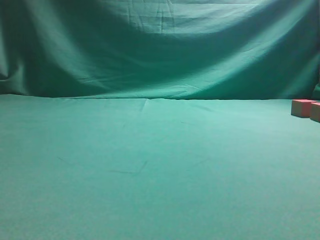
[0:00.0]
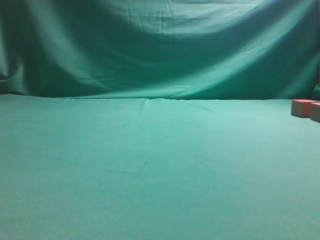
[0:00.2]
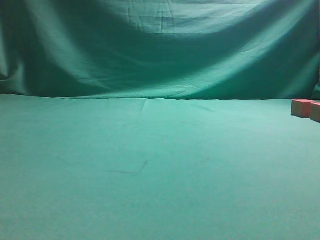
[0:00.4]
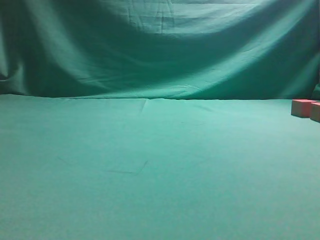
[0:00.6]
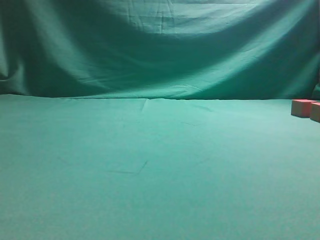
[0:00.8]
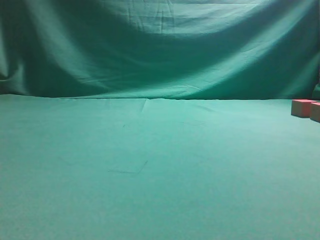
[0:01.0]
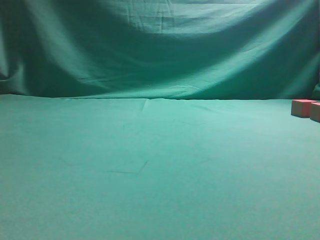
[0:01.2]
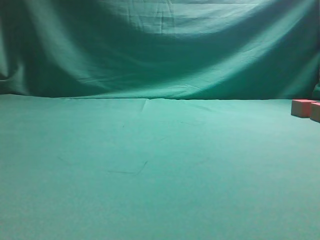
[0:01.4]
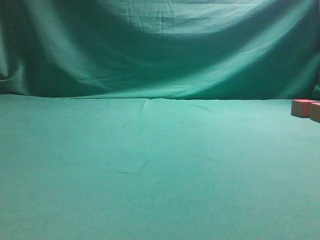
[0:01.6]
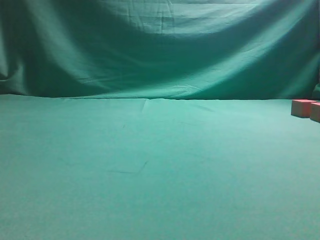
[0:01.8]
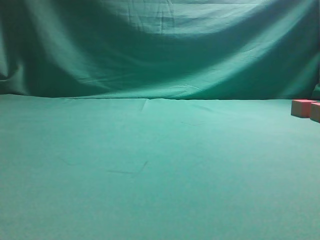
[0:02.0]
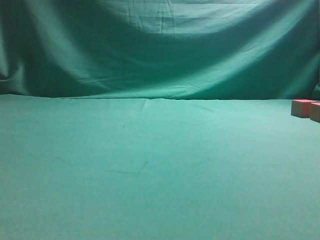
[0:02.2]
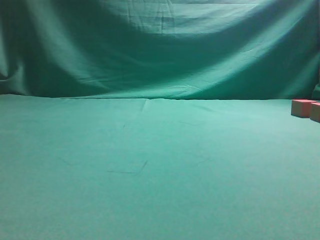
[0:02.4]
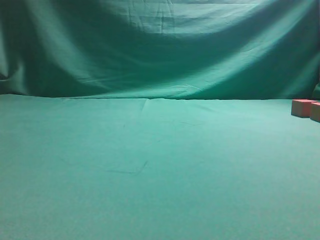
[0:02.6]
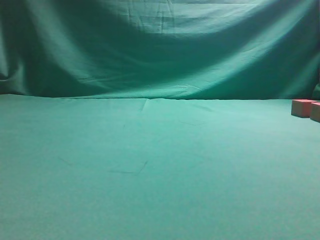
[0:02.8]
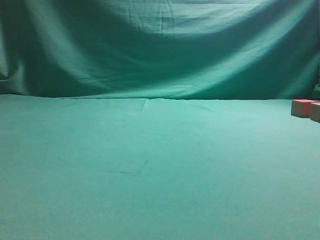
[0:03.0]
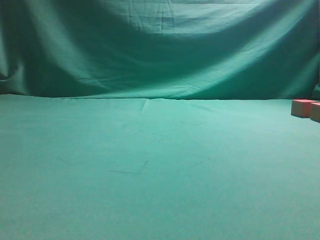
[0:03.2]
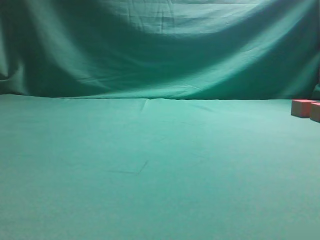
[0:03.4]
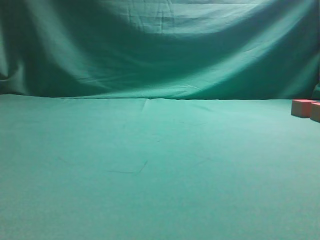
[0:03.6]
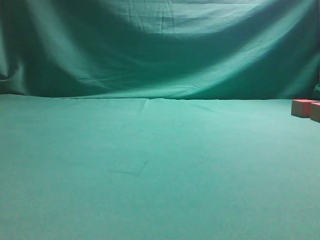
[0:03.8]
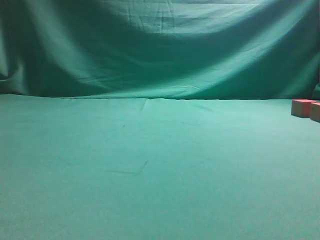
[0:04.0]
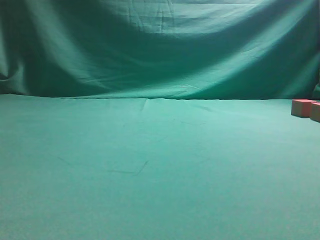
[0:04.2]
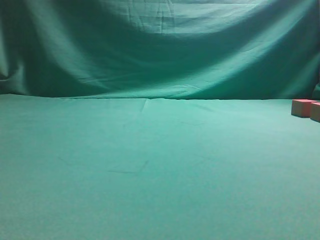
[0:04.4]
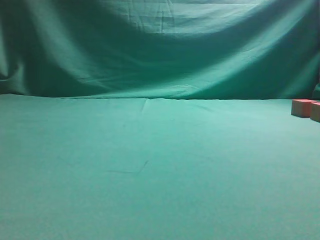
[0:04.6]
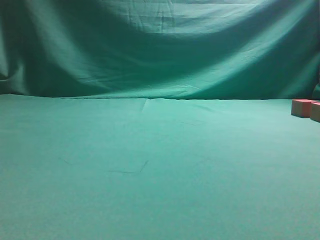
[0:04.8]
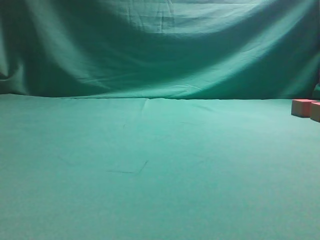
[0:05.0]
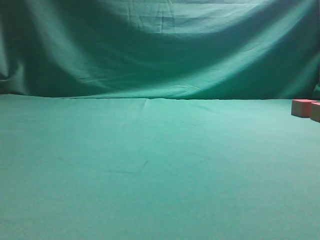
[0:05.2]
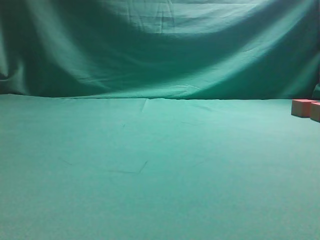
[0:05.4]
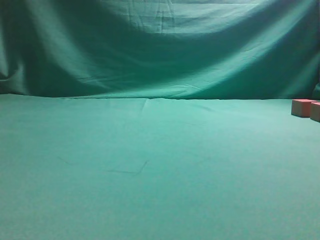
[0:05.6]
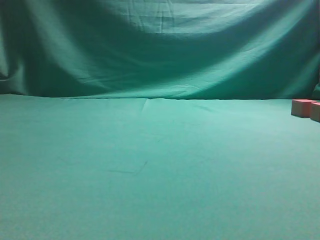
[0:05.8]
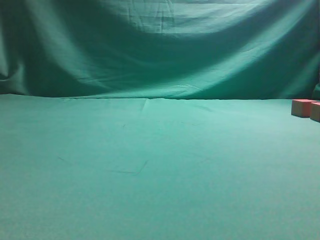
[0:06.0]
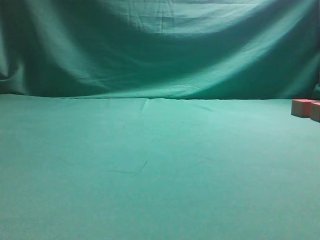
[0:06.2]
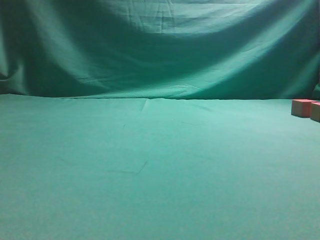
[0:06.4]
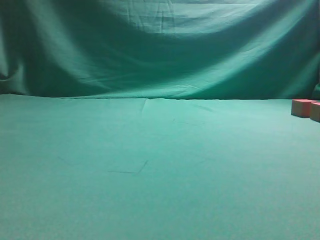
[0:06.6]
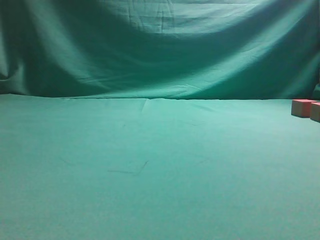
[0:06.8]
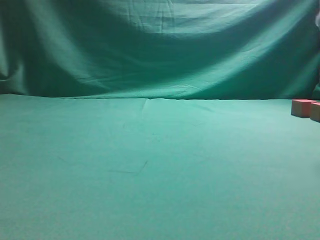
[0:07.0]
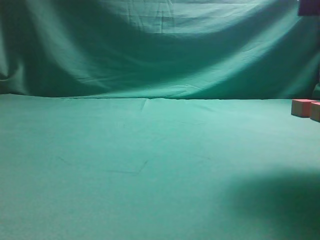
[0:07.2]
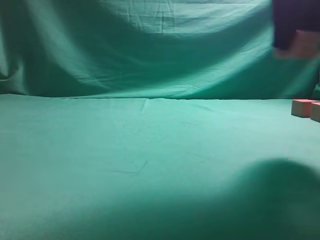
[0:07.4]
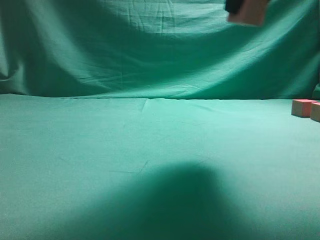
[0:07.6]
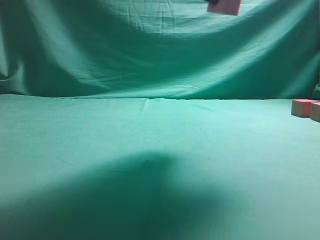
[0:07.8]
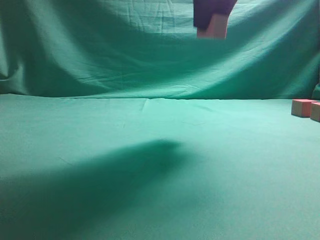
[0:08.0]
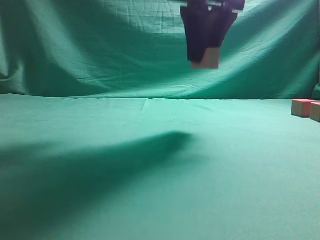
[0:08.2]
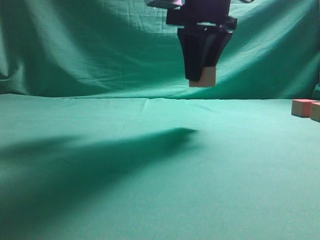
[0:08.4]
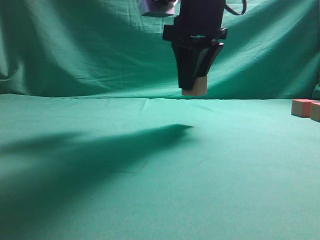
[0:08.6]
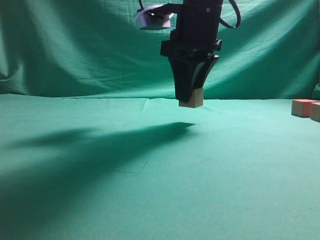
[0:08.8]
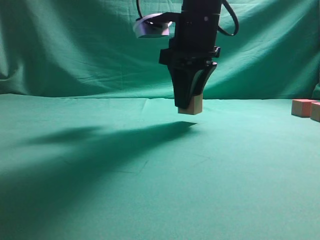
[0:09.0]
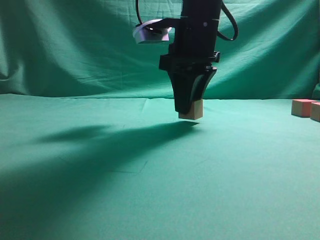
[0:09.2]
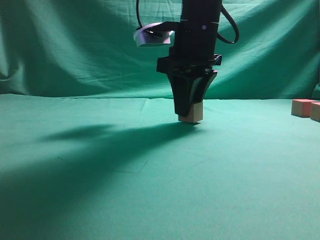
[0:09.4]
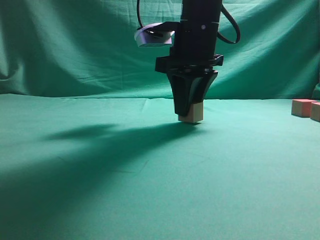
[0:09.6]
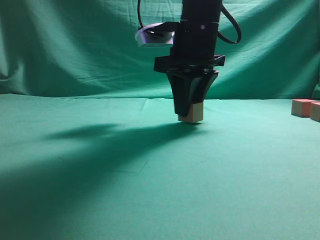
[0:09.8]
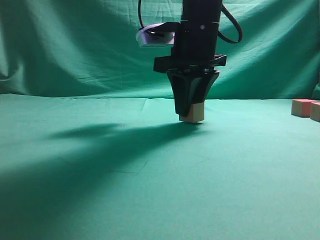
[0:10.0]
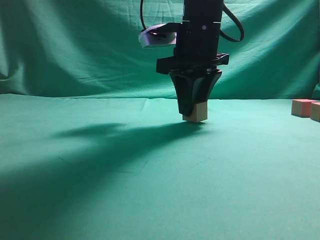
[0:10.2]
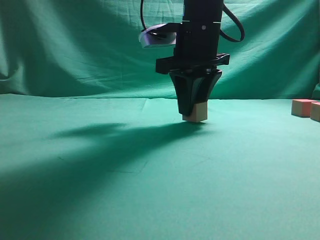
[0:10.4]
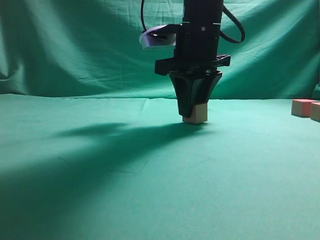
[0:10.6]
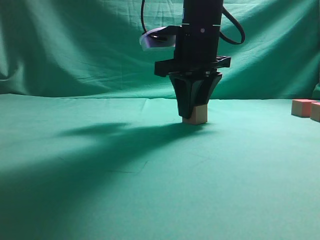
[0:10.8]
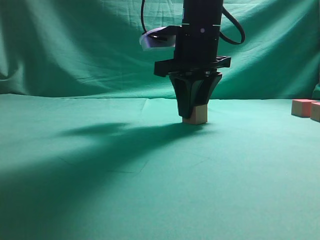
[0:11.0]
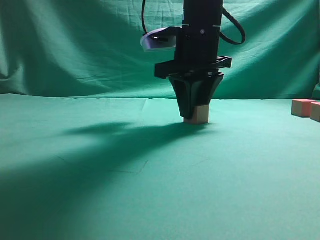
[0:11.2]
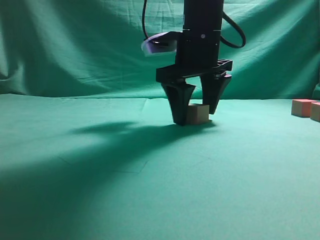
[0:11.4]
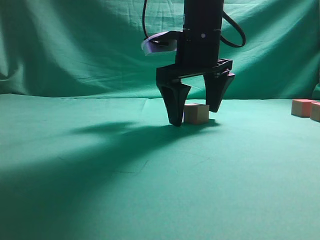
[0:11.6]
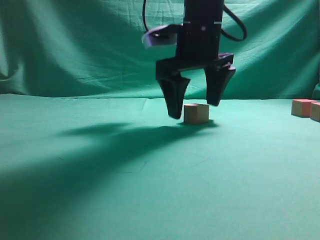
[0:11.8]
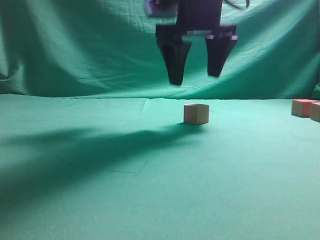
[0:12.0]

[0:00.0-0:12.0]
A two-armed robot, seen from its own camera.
Task of the whole recording: pick up the multiple cubes in two columns one by one and place them in another position on the table.
Step, 0:04.2 to 0:12.0: Place the block at the correct position to assemble the letter S.
0:06.0 to 0:07.6: The right gripper heads upward and to the left, covering approximately 20 cm, and closes its fingers.
0:07.6 to 0:09.0: The right gripper moves forward, downward and to the left, roughly 15 cm.
0:09.0 to 0:10.4: The grippers move only a little.
0:10.4 to 0:12.0: The right gripper opens.

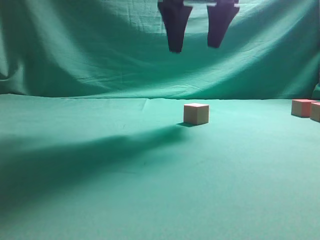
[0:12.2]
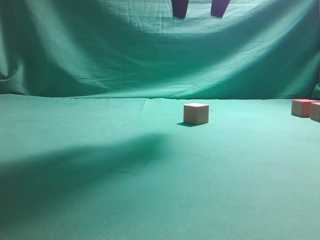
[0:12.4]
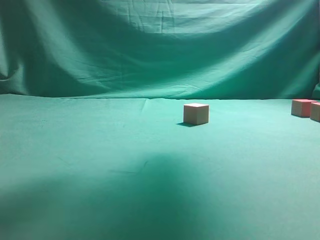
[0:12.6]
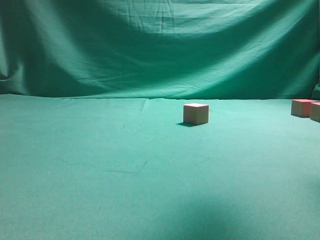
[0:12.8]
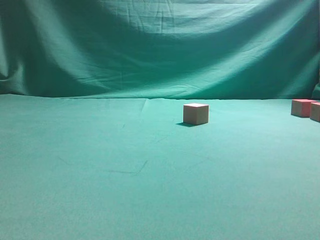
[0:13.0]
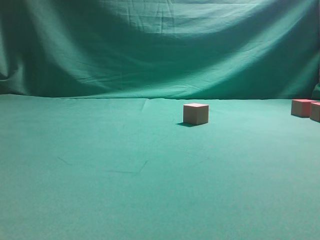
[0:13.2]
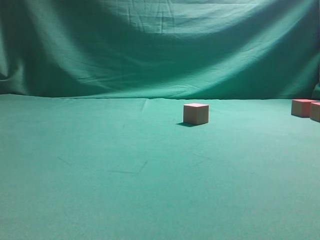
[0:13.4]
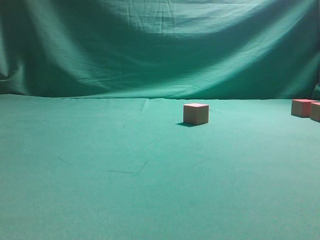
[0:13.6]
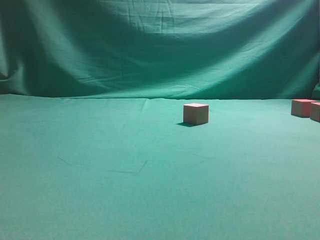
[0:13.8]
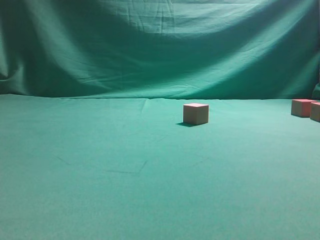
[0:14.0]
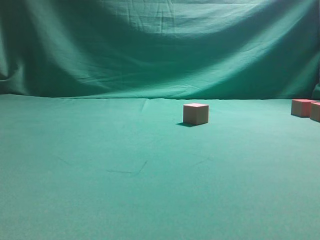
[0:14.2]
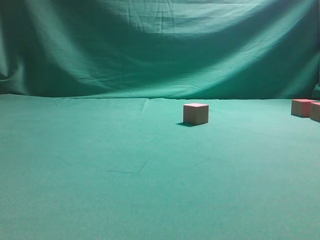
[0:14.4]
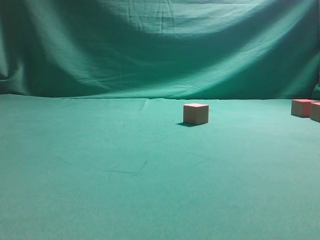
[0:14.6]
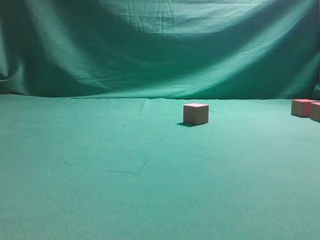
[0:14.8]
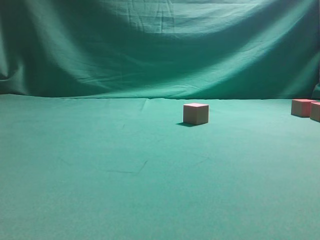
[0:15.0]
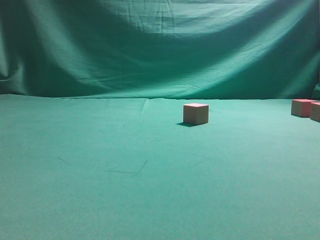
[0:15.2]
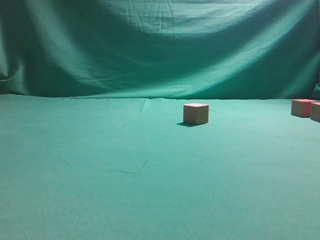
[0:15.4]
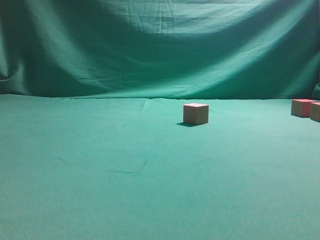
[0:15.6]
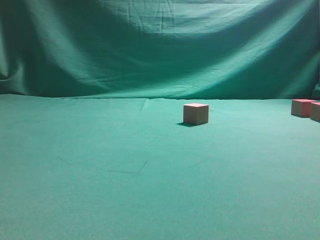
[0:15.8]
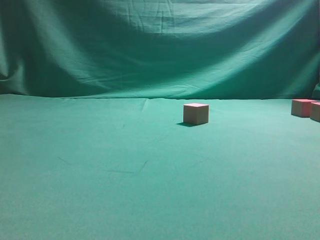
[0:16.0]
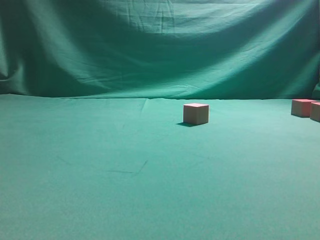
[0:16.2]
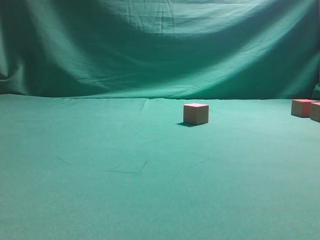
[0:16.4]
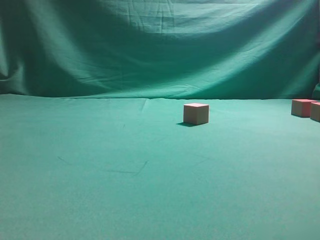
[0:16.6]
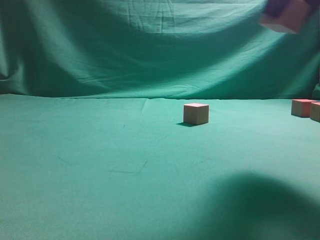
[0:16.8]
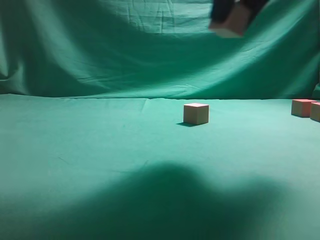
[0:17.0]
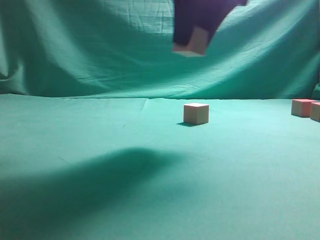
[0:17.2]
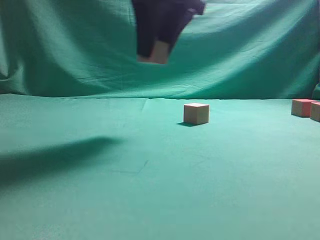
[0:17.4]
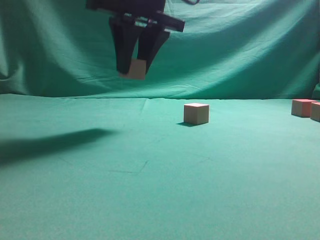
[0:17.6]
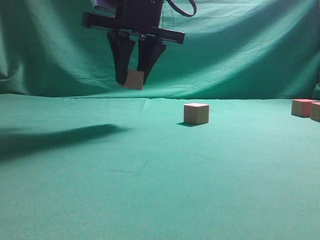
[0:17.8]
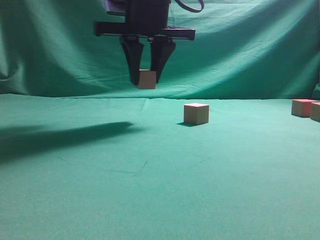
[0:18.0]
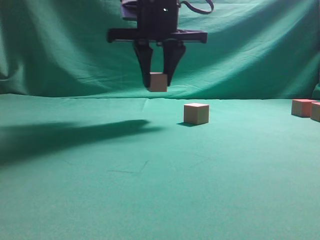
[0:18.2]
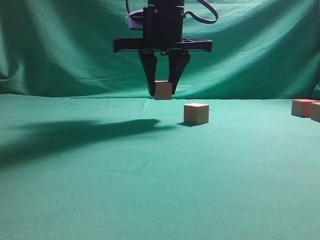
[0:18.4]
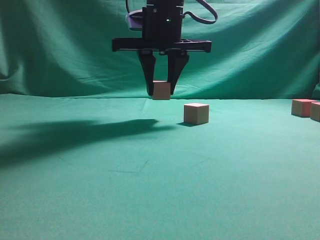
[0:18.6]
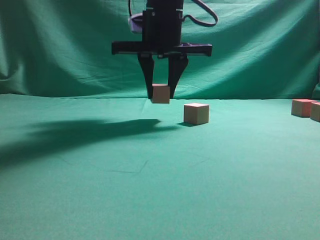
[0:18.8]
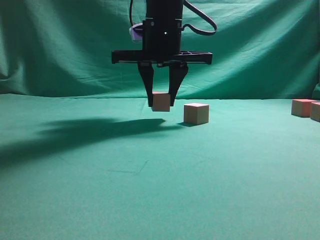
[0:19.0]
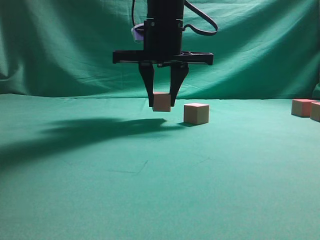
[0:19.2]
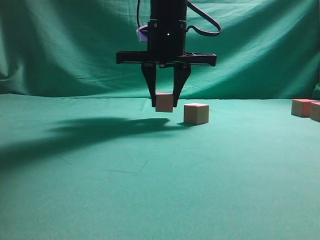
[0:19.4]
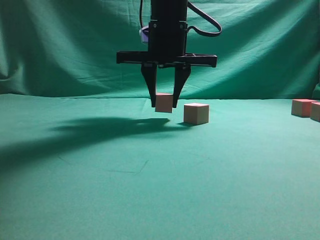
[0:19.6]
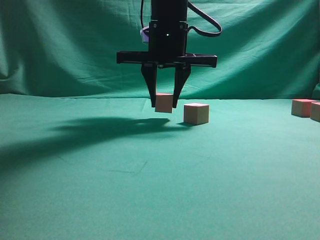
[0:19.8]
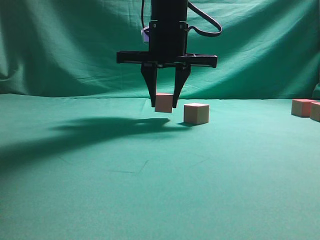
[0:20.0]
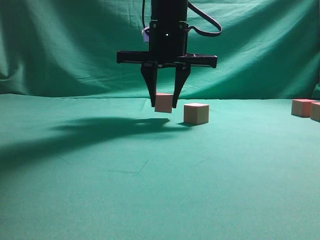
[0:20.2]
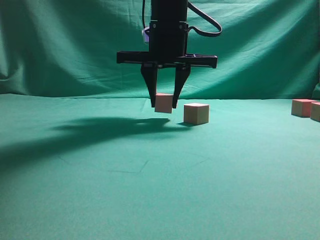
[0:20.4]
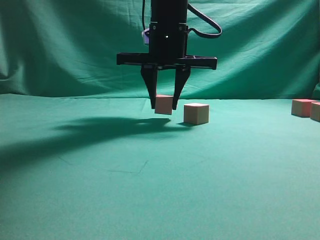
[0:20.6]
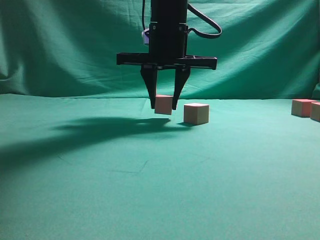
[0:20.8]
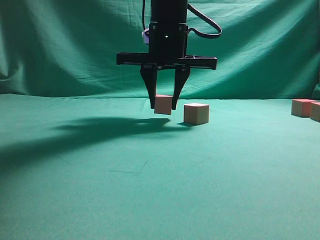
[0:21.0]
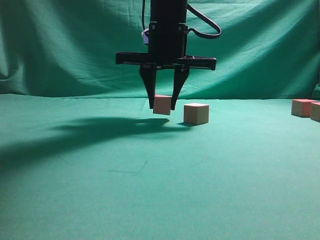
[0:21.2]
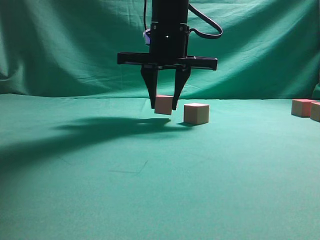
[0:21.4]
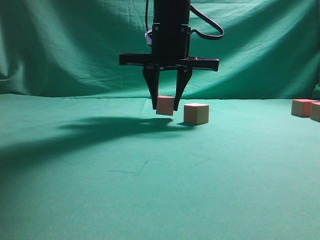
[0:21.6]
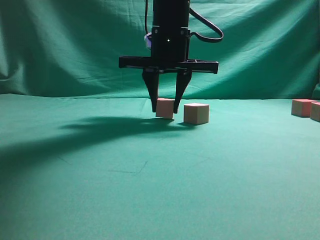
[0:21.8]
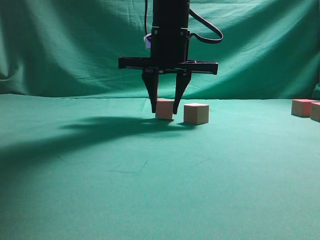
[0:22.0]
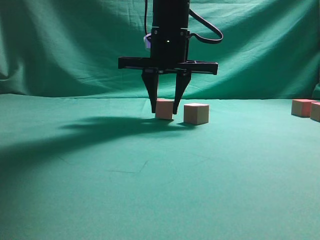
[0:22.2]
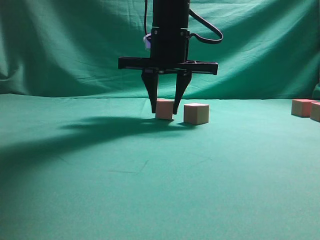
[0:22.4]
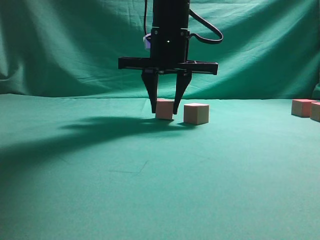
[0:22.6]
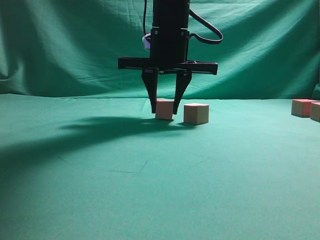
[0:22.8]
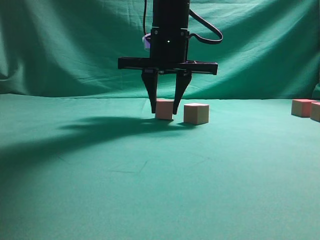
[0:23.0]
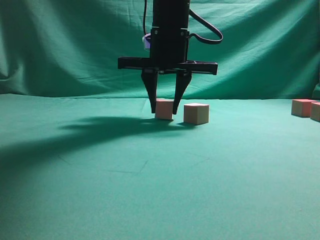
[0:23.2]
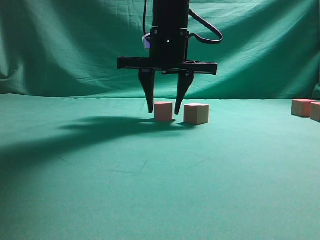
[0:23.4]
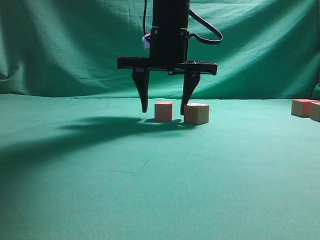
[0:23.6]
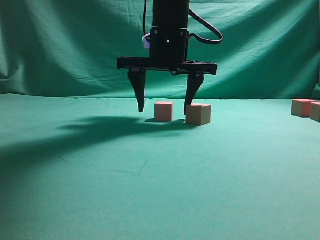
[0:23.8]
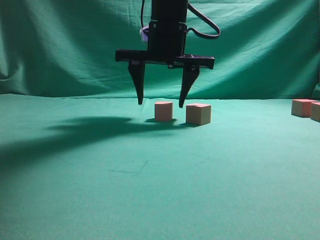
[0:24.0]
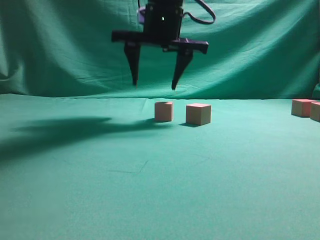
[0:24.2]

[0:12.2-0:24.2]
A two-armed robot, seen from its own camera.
Task of the whole recording: pick up the multiple cubes in two columns one by one and place them in another position on the table.
Step, 0:12.2 to 0:16.6: Pick up the block on the table.
Step, 0:16.8 to 0:23.8: Place the block at the correct position to assemble the letter S.
0:12.2 to 0:13.8: The right gripper shifts about 25 cm to the right and backward.
0:16.6 to 0:18.2: The right gripper travels to the left and forward by some 30 cm.
0:19.8 to 0:22.6: Both grippers stay put.
0:22.6 to 0:24.2: The right gripper opens.
